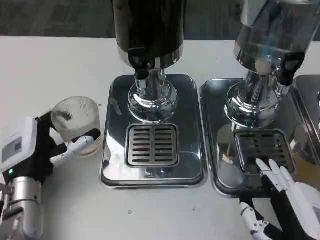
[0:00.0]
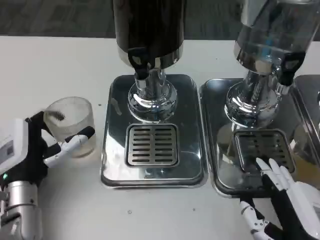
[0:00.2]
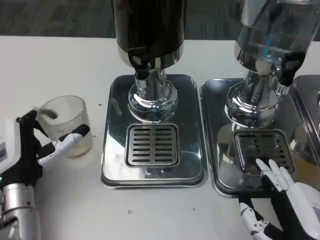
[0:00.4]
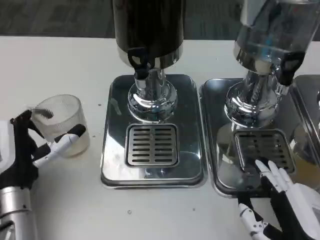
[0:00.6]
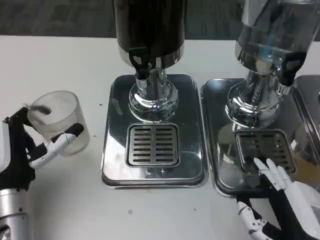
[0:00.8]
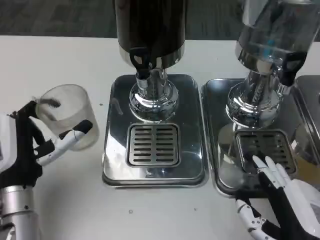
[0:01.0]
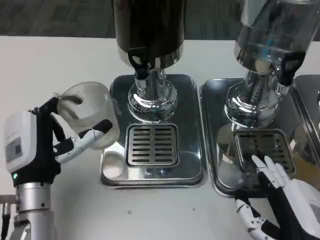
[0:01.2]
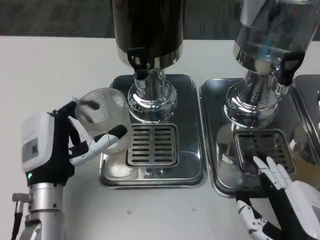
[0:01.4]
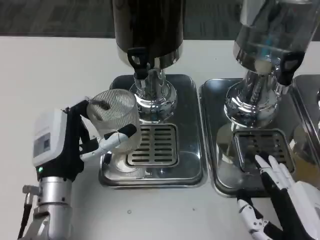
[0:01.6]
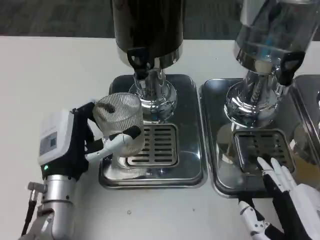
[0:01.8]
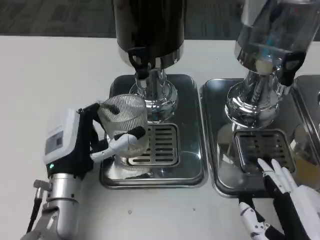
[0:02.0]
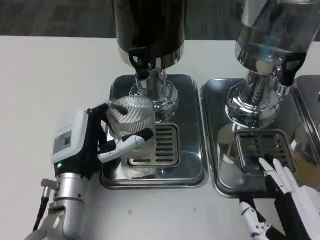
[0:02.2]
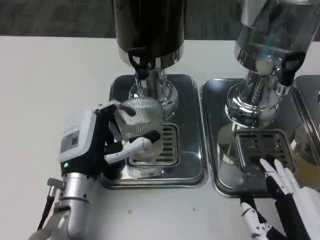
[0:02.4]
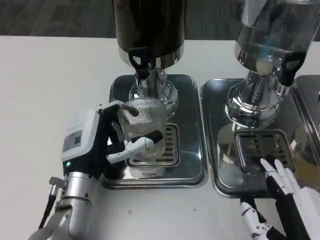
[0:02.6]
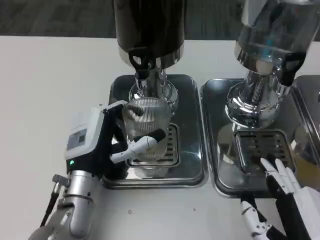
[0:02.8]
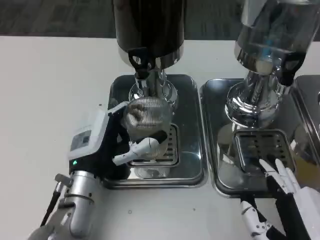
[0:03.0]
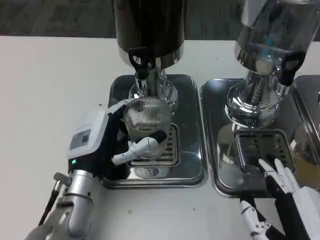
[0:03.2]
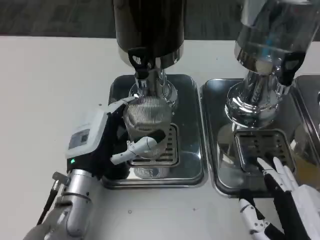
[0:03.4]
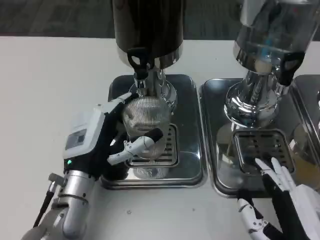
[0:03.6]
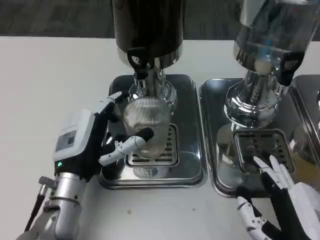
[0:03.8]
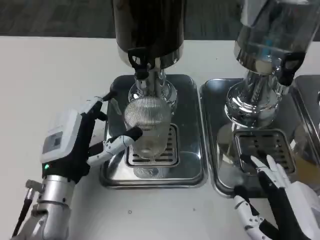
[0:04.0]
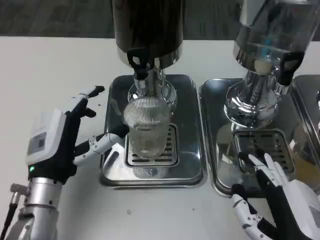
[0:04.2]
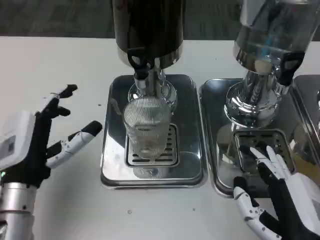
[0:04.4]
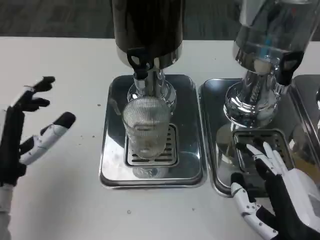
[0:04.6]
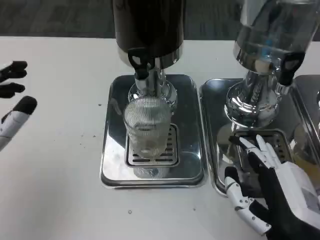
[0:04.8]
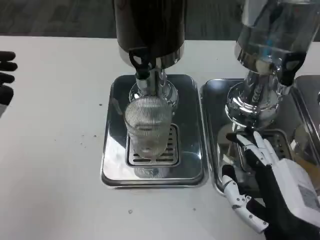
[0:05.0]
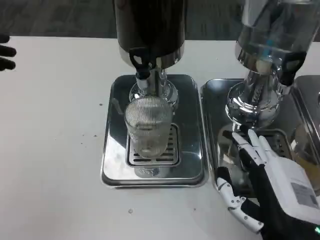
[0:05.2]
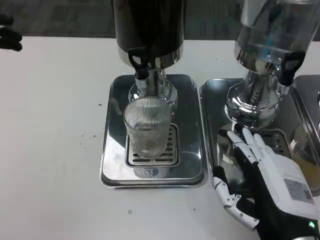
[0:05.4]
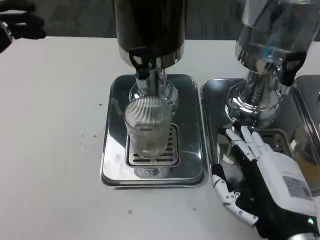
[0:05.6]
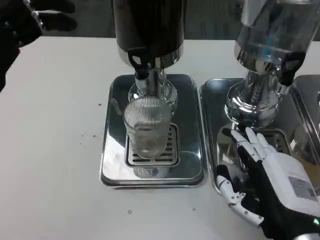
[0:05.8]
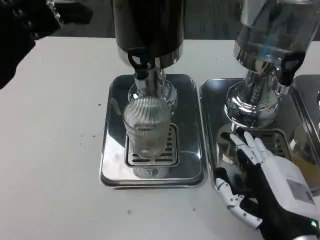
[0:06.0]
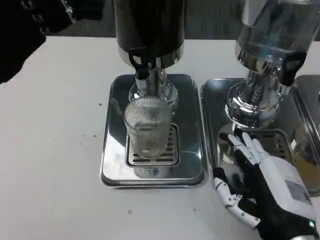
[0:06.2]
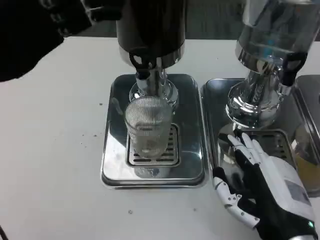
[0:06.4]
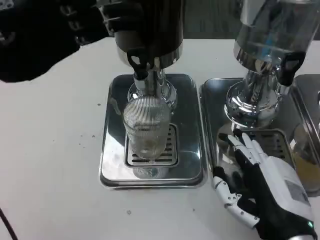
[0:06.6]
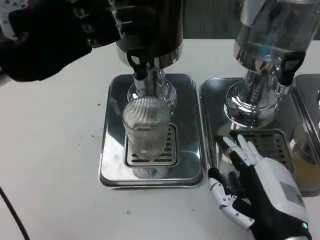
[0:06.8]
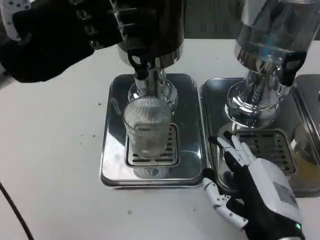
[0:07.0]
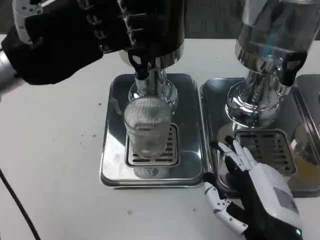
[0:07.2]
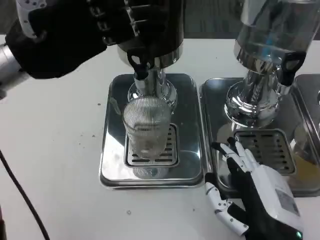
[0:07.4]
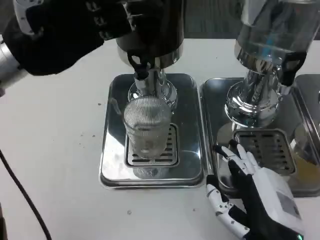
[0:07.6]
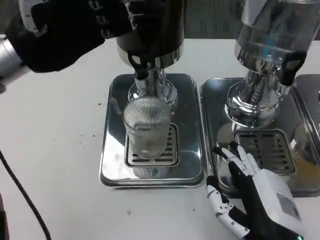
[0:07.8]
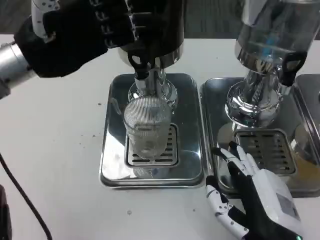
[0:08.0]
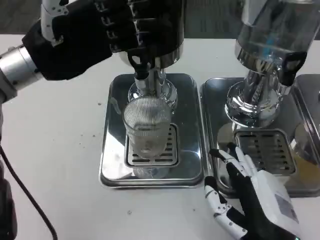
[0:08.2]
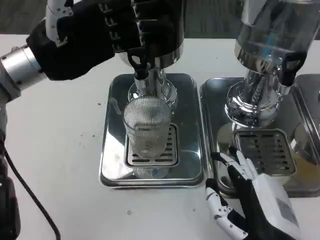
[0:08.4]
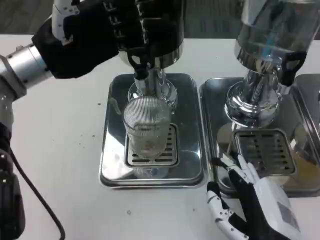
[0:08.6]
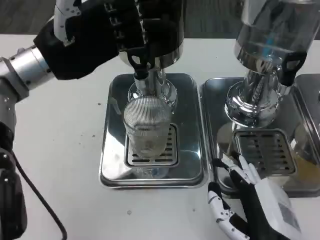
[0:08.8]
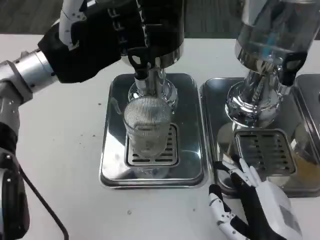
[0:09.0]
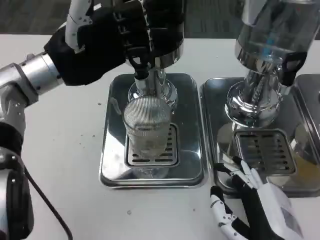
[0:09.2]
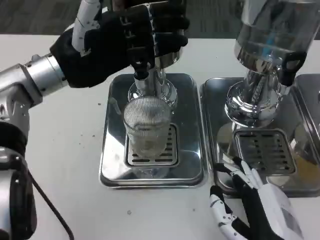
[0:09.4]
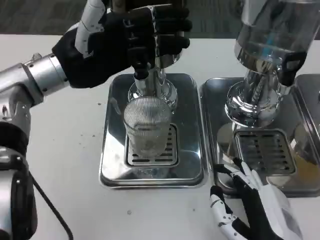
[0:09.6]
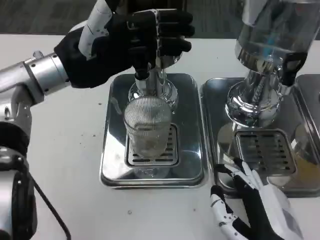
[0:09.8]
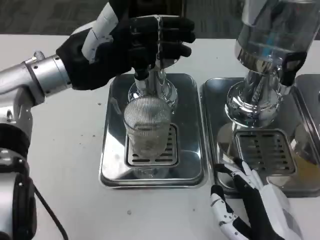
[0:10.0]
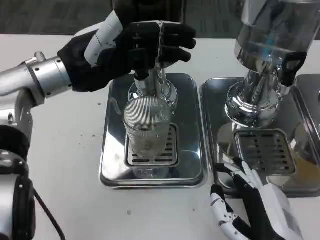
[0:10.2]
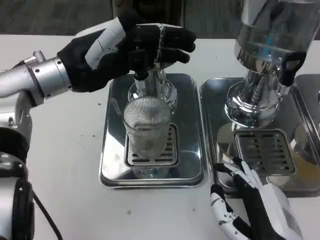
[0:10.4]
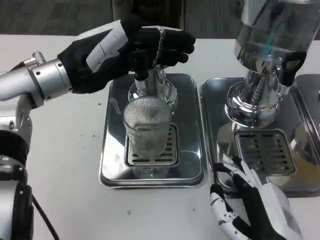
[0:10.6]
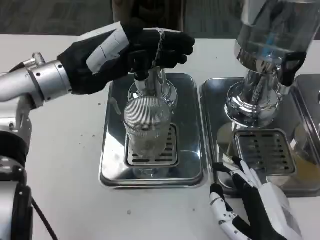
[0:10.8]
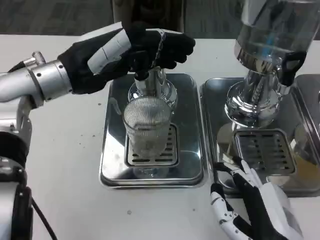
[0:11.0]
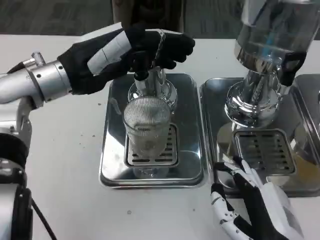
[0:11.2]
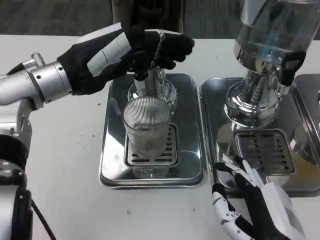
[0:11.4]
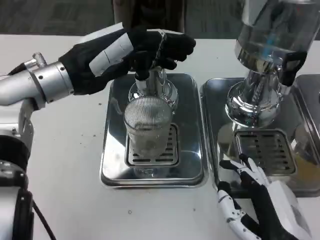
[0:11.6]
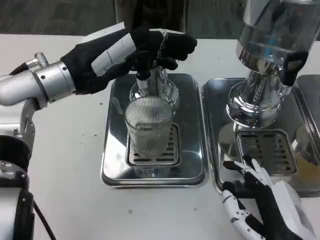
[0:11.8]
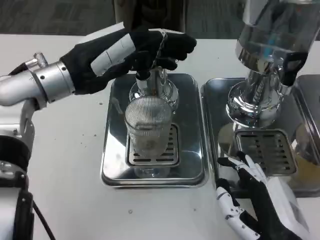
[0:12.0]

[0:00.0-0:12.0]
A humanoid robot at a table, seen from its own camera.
Task of the whole recording: Grasp the cup under the faucet to collect the drink, then remove the cup.
0:03.0 to 0:04.4: The left hand shifts about 10 cm to the left.
0:04.4 to 0:06.0: The left hand heads upward, covering approximately 15 cm.
0:06.0 to 0:07.6: The left hand is displaced forward by roughly 5 cm.

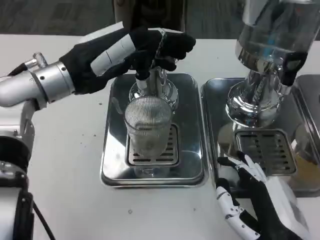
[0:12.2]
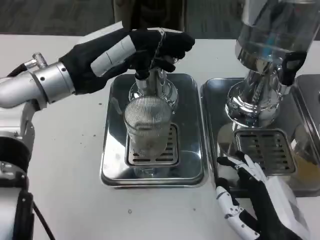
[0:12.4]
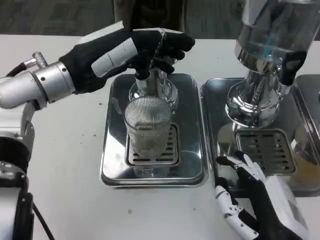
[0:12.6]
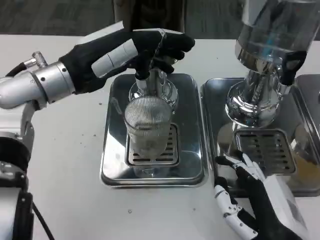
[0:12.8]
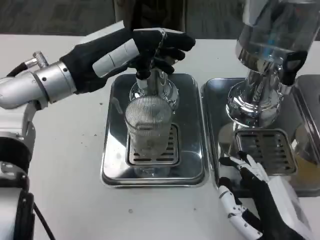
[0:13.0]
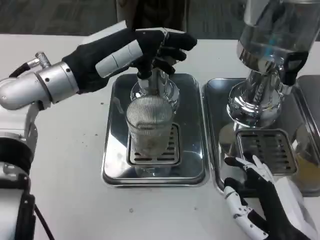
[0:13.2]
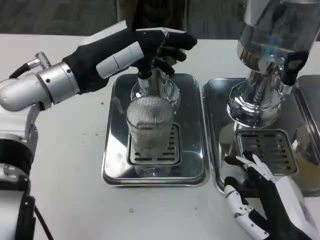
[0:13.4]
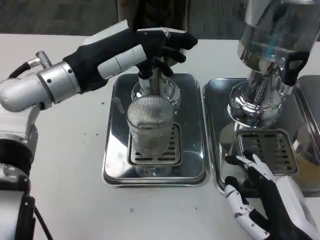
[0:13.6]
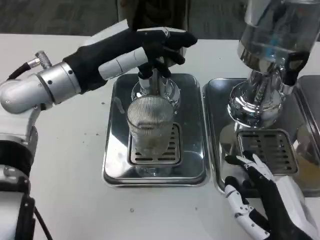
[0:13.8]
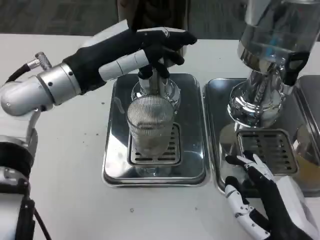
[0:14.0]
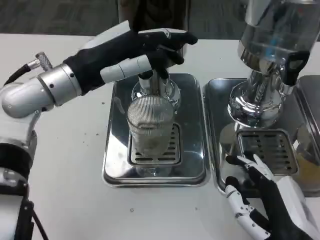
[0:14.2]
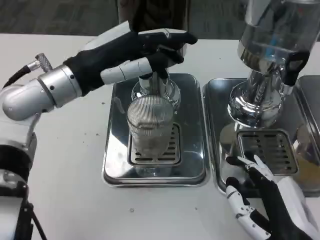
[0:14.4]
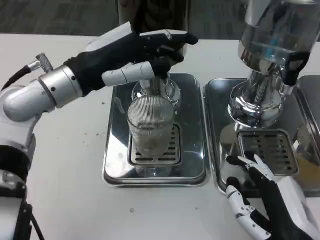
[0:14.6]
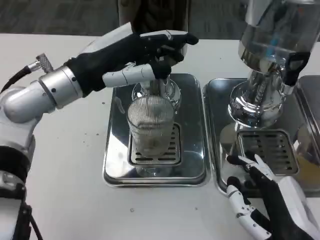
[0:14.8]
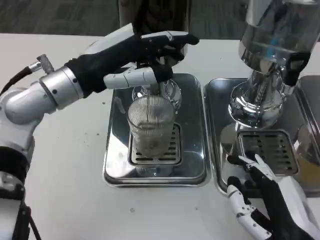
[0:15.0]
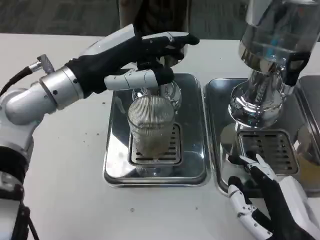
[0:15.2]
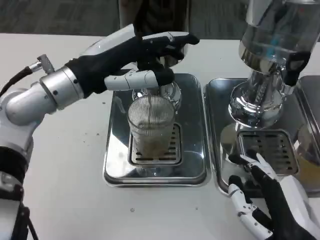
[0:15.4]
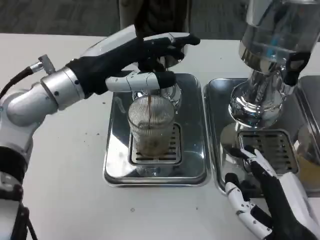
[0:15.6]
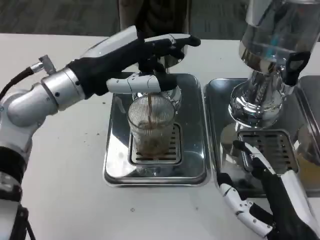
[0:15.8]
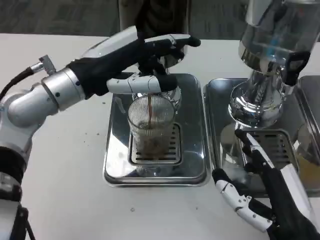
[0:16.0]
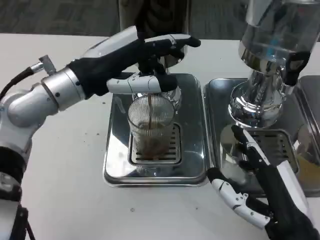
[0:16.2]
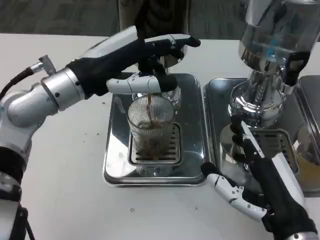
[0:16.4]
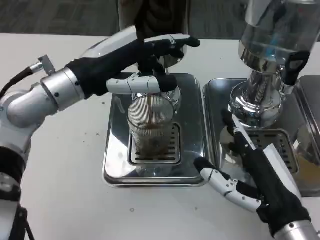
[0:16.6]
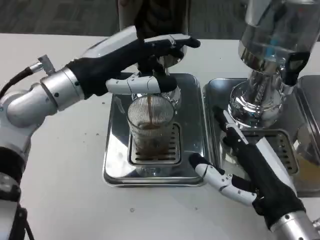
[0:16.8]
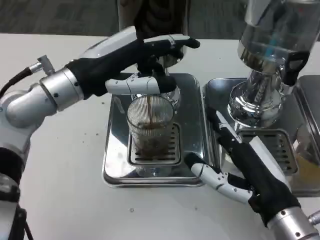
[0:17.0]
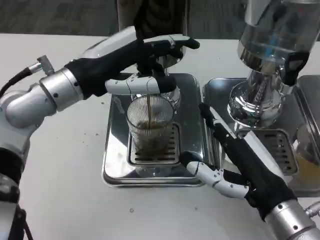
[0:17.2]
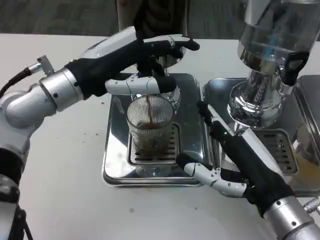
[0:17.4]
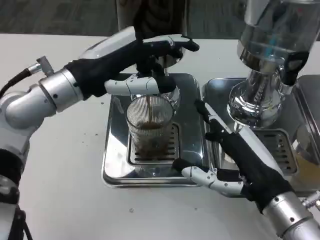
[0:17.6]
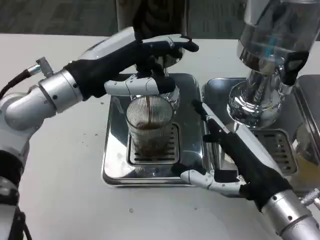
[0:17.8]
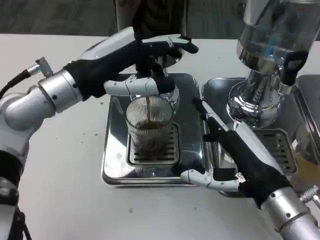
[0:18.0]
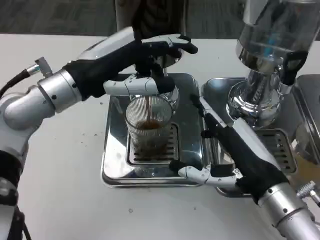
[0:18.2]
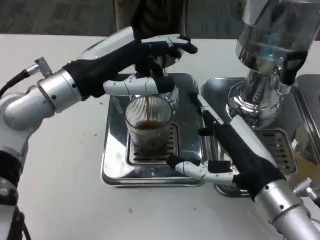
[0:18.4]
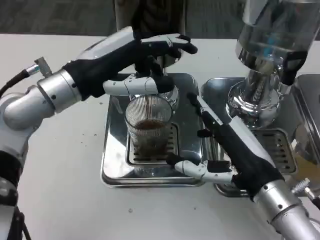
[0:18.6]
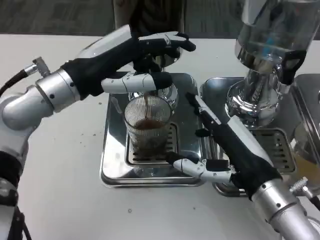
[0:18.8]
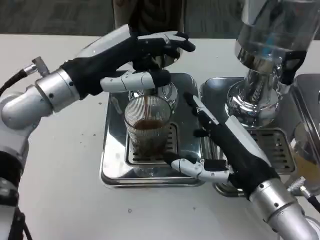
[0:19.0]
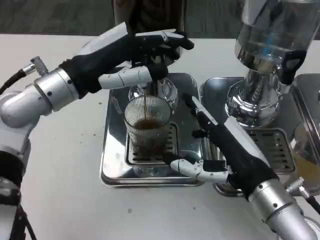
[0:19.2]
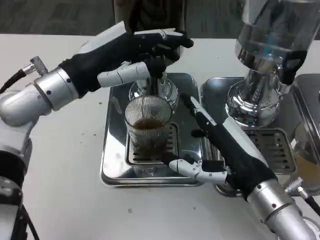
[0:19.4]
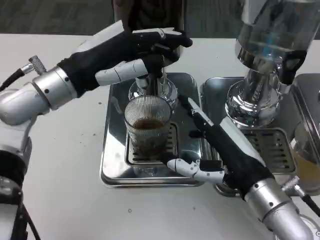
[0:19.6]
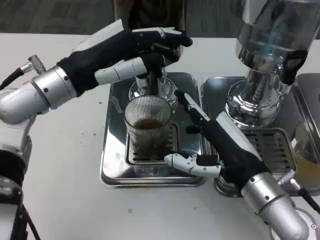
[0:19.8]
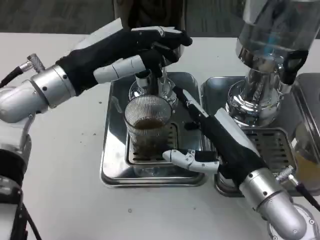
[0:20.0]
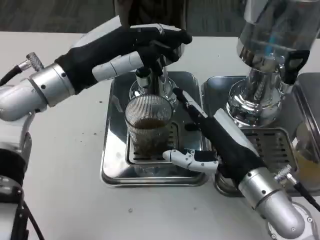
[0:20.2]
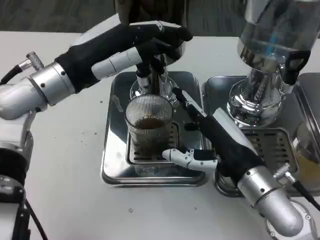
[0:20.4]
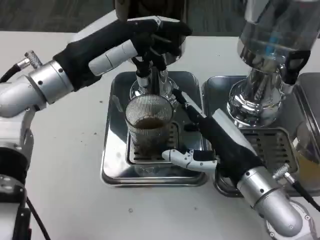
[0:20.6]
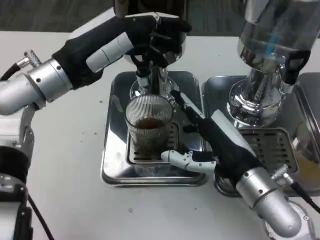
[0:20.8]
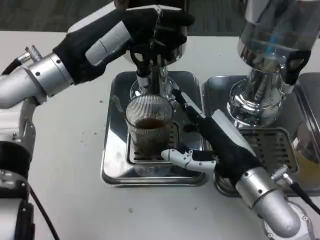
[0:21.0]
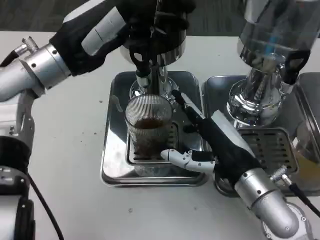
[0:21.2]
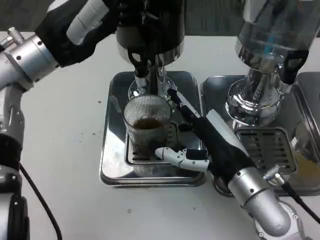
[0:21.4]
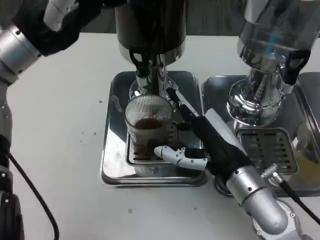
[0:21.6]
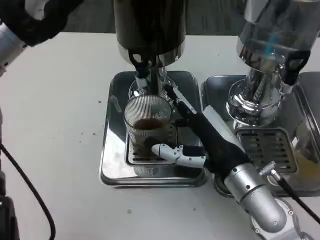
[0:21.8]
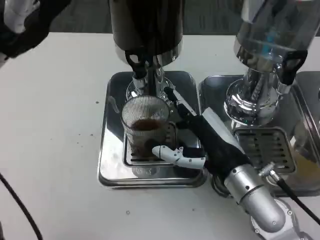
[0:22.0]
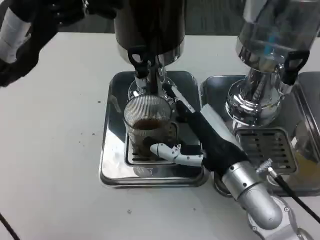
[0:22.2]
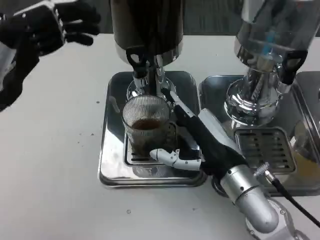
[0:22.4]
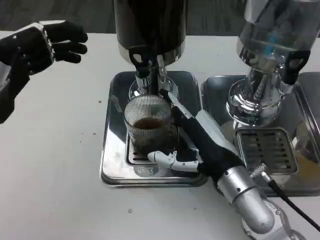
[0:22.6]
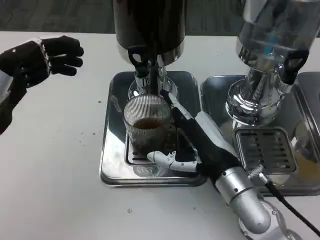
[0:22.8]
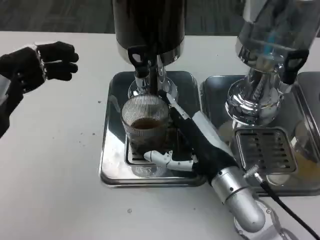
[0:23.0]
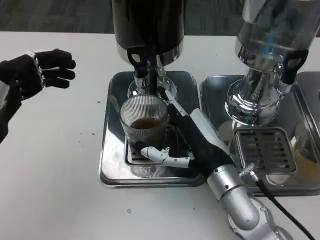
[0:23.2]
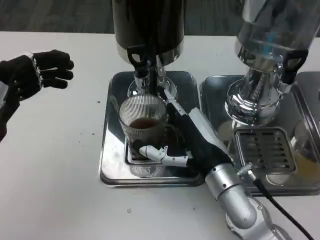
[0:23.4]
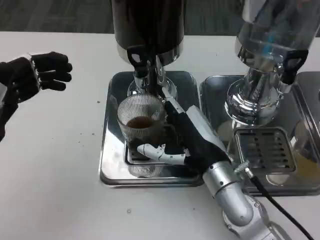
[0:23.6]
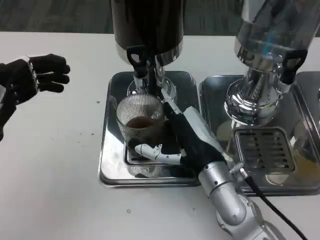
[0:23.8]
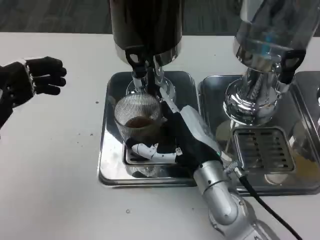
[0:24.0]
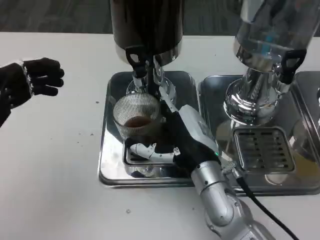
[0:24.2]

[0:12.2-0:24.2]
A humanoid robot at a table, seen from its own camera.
Task of the whole recording: Grasp the cup under the faucet to collect the drink, then remove the cup.
0:13.8 to 0:16.6: The hands stay close to where they were, moving slightly.
0:21.2 to 0:22.6: The left hand shifts approximately 15 cm backward and to the left.
